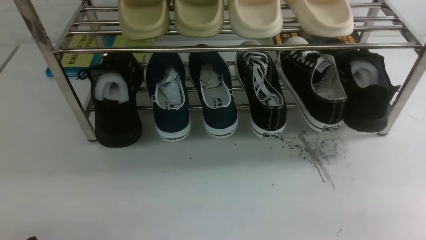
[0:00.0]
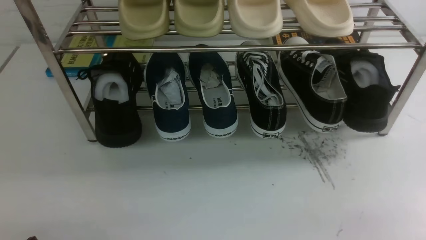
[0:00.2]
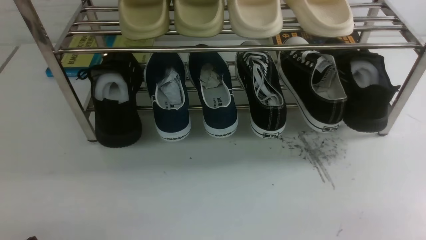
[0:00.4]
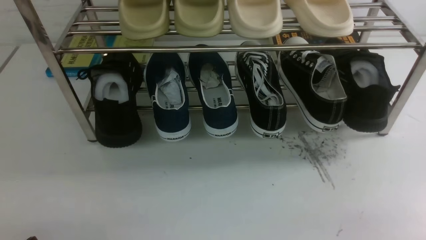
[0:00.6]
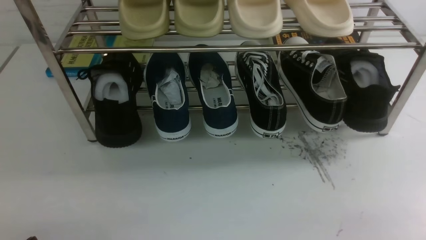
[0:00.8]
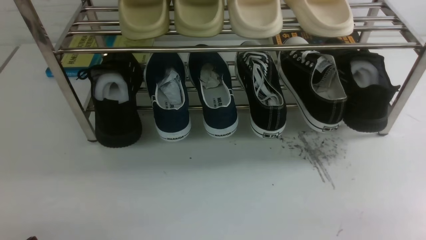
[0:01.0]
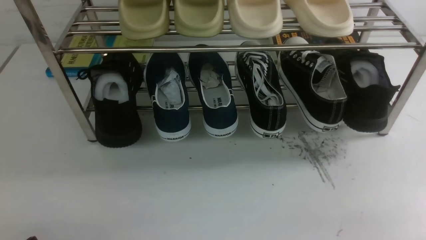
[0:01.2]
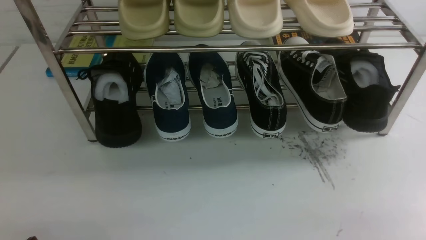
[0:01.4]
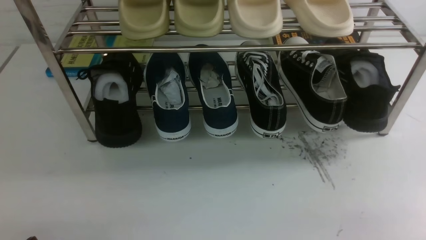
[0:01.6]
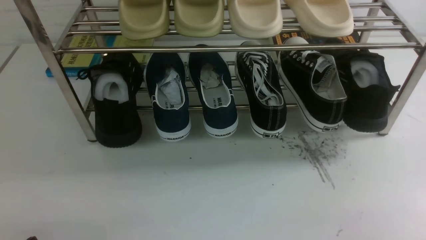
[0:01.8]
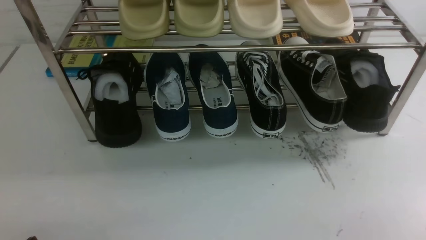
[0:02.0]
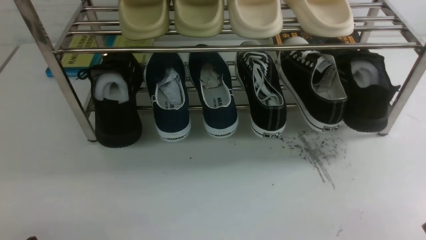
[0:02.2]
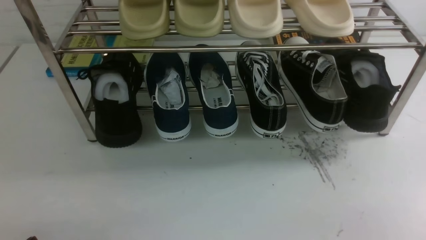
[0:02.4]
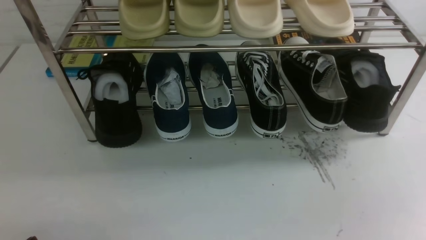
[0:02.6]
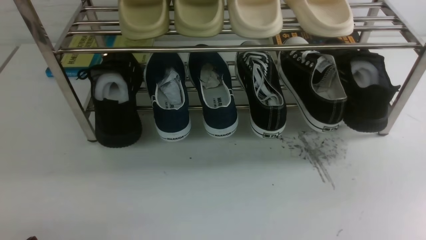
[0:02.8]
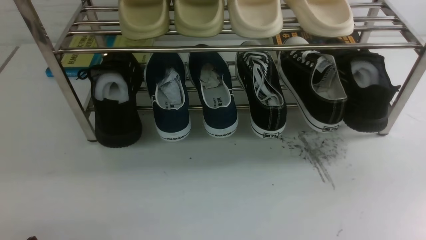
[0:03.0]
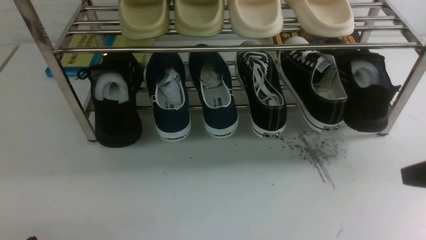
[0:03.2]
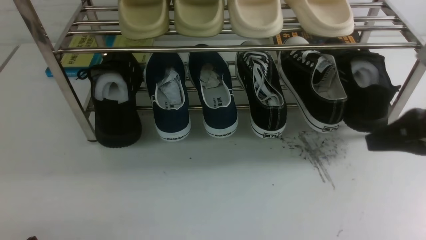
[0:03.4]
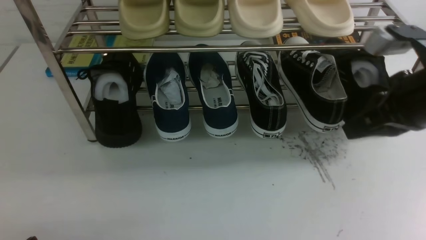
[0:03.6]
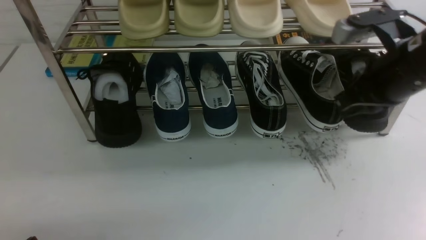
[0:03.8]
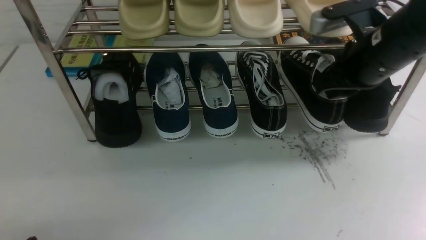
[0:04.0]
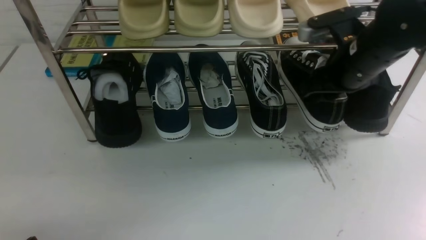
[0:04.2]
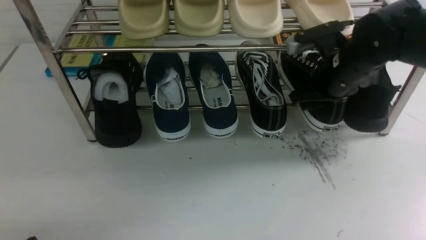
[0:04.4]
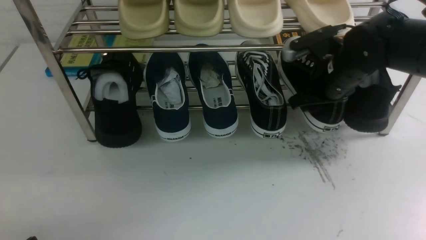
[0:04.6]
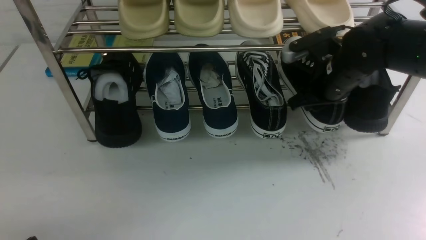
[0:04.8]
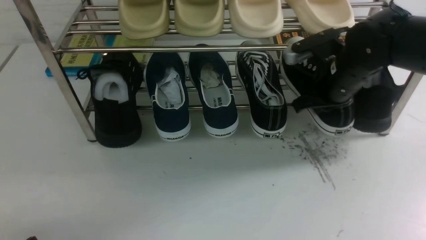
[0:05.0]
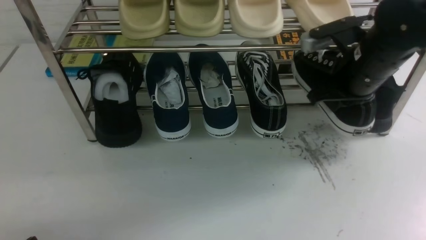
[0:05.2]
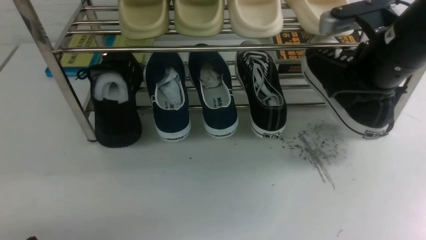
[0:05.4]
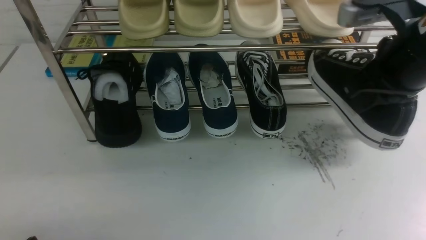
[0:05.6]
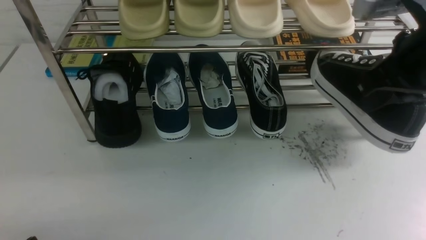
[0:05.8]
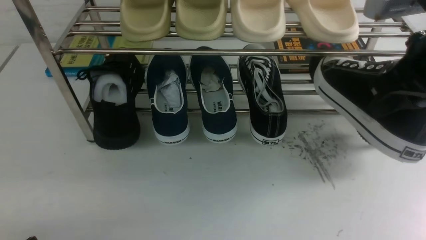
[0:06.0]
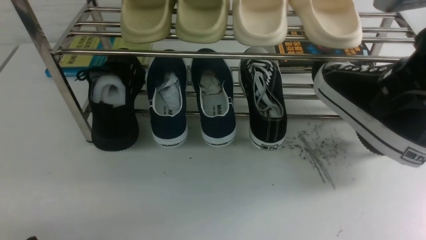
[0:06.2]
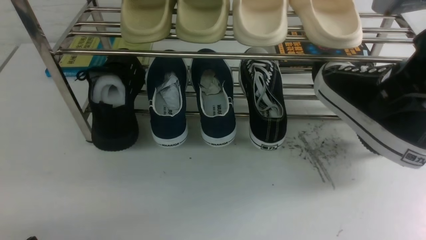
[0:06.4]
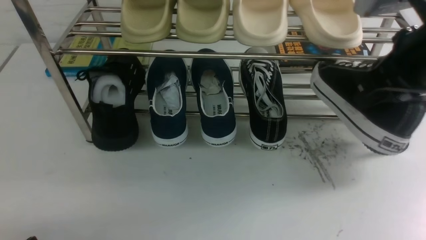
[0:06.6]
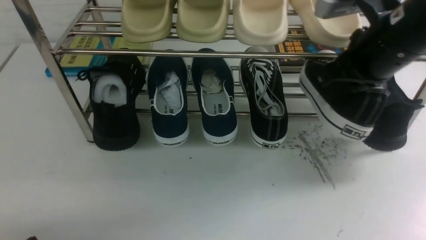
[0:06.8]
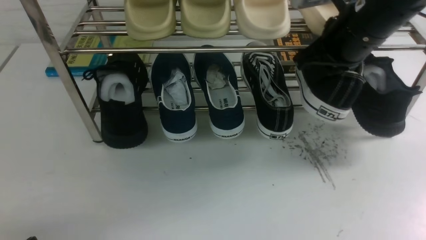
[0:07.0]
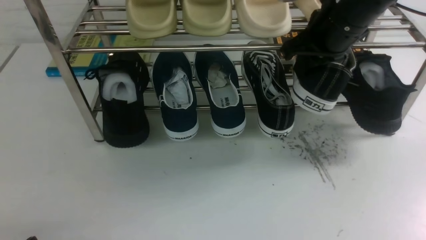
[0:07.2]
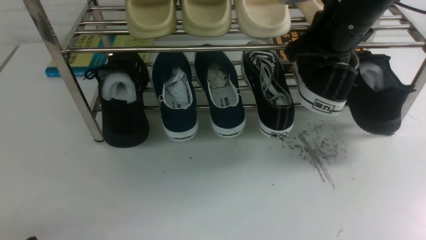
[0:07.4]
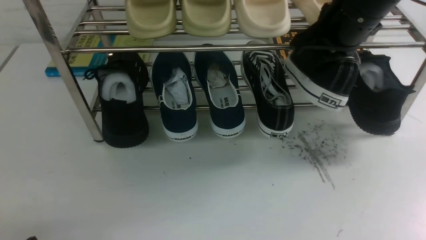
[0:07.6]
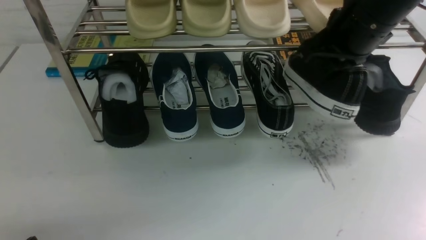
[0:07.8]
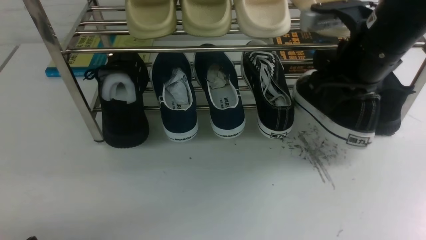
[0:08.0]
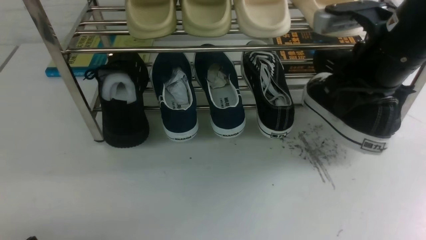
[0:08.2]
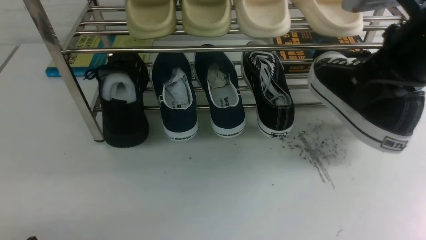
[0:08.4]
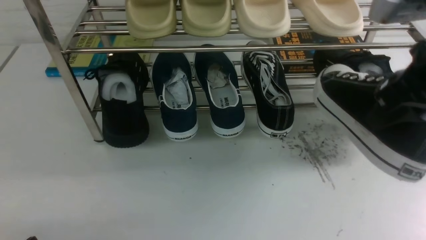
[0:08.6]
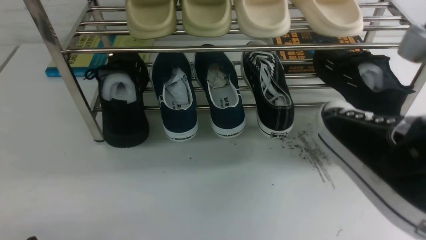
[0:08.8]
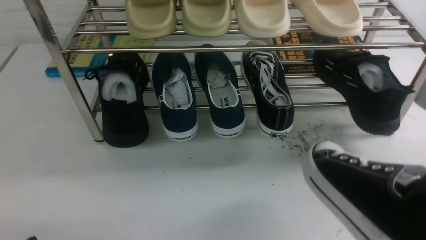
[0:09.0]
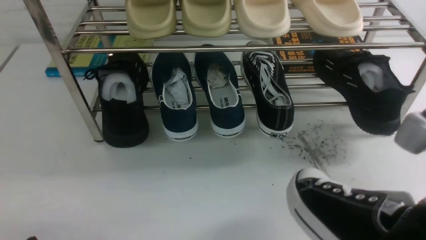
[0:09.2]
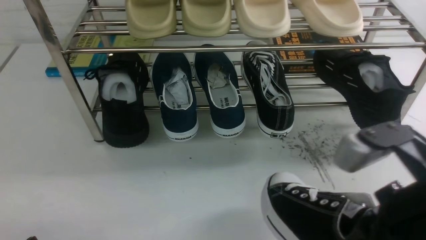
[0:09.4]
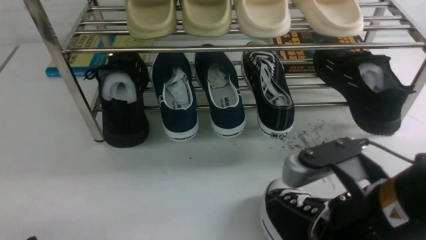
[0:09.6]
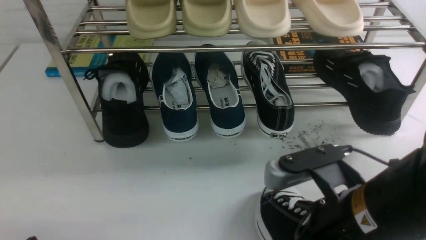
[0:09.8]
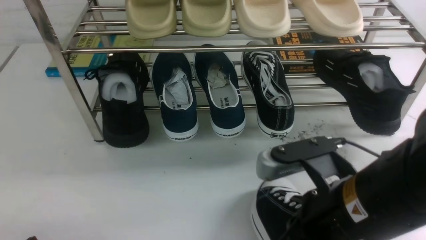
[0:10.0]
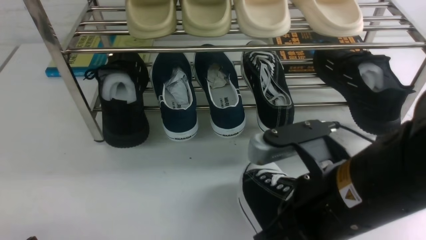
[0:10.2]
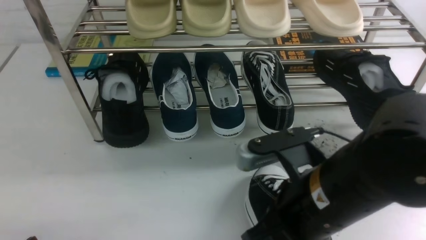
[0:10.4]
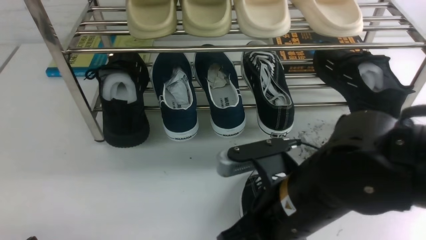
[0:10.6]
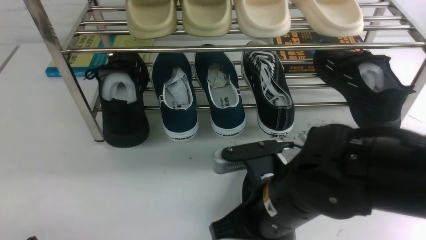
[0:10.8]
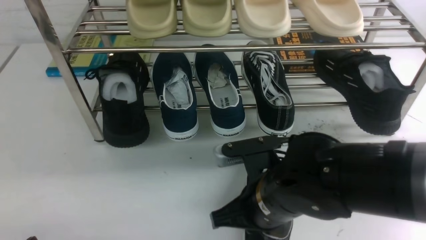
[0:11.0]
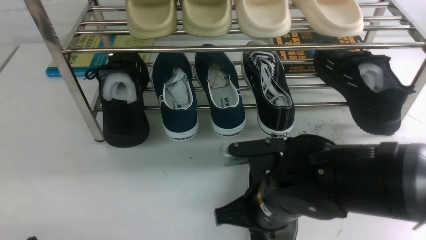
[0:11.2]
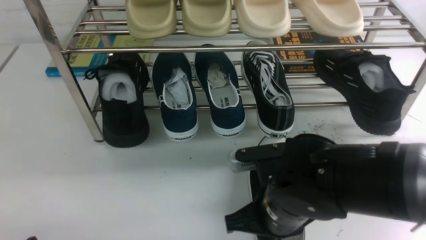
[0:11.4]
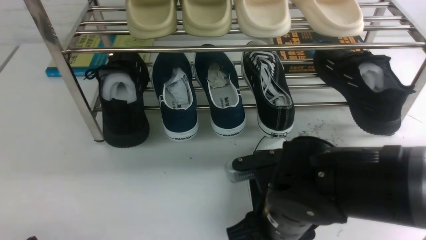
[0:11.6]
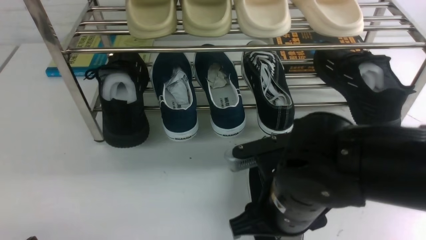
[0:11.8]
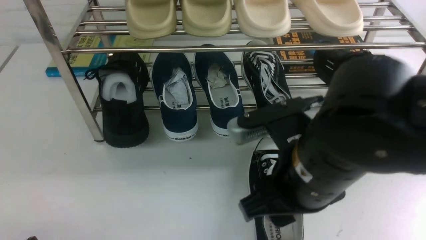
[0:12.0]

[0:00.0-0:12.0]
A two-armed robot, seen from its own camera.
Step, 0:00.0 to 0:05.2: use the right arm to clamp a shoe on the right side of the shoe rack.
Step, 0:05.4 to 0:11.8: use the right arm to take out the clamped shoe from the shoe rack and put it down.
0:03.0 to 0:04.4: The right gripper heads forward and to the left, covering approximately 25 cm, and opens.
0:04.4 to 0:06.0: The right gripper goes about 20 cm backward and upward, and closes up.
0:06.0 to 0:07.6: The right gripper moves forward, approximately 10 cm.
0:07.6 to 0:09.0: The right gripper heads backward, covering some 20 cm.
0:09.0 to 0:10.4: The right gripper heads to the left and downward, covering approximately 15 cm.
0:10.4 to 0:12.0: The right gripper moves about 5 cm downward and comes back, and opens.

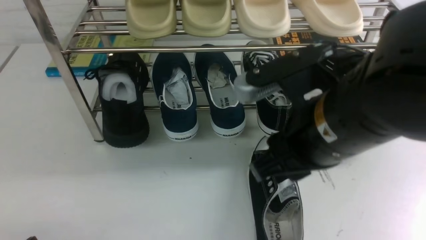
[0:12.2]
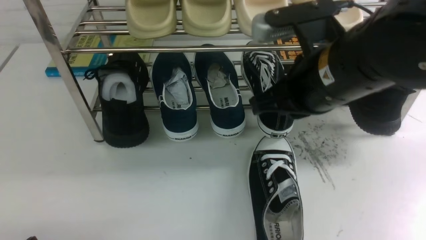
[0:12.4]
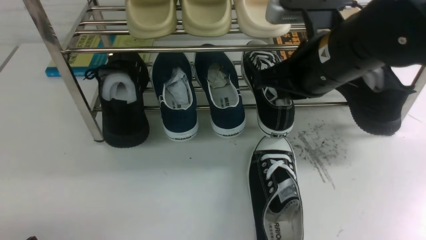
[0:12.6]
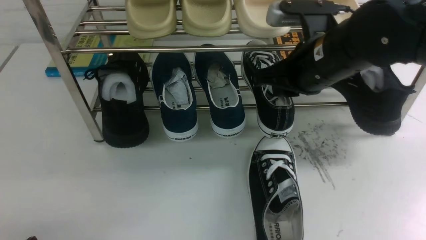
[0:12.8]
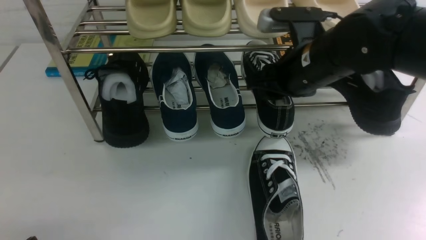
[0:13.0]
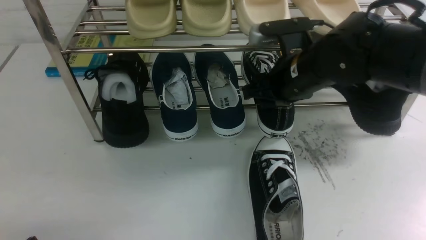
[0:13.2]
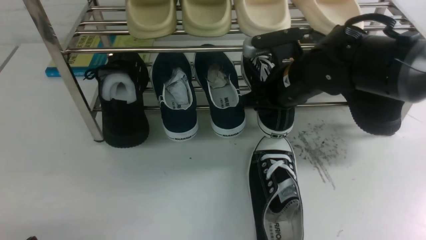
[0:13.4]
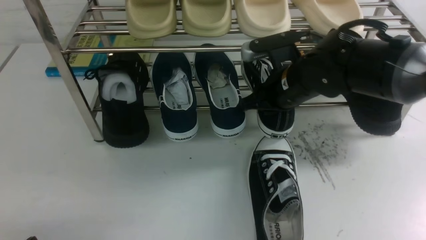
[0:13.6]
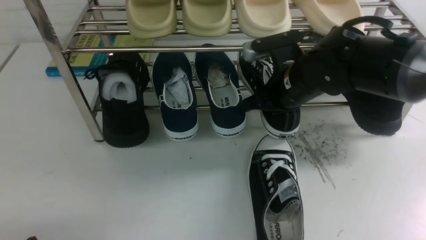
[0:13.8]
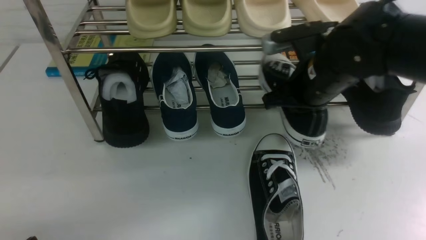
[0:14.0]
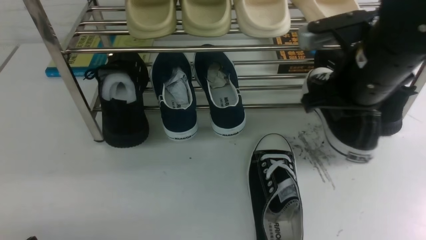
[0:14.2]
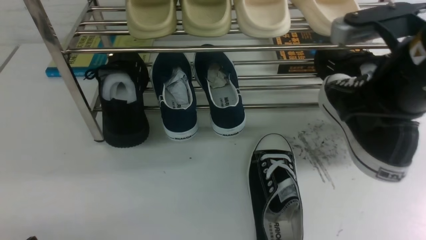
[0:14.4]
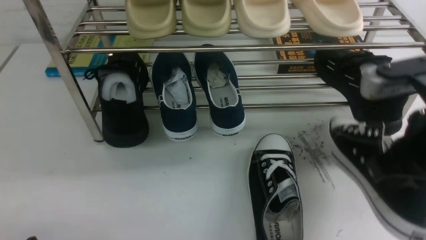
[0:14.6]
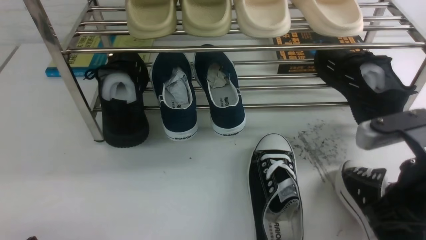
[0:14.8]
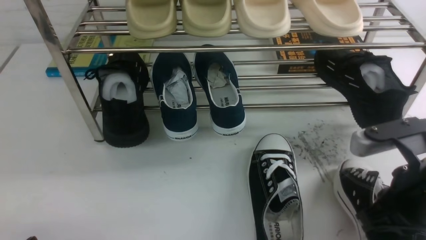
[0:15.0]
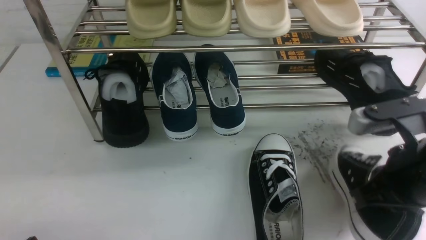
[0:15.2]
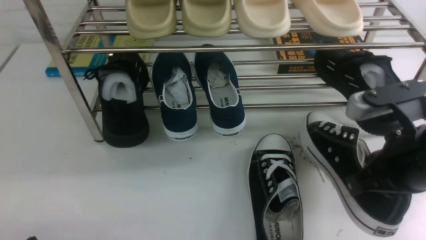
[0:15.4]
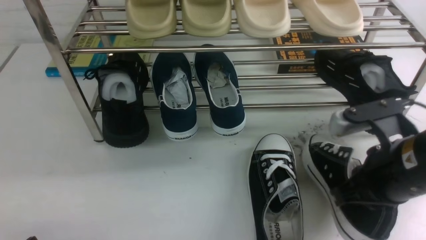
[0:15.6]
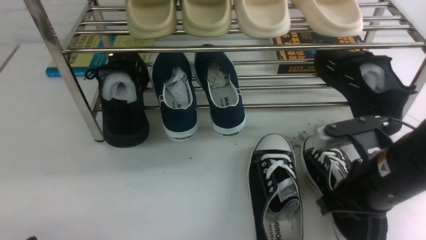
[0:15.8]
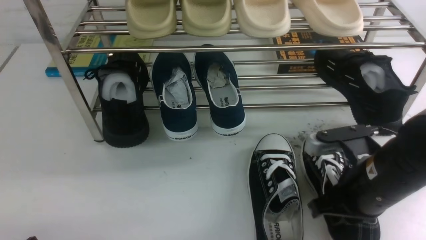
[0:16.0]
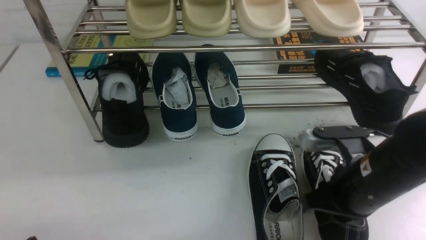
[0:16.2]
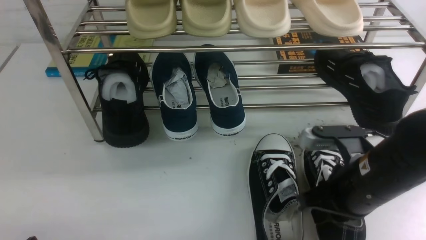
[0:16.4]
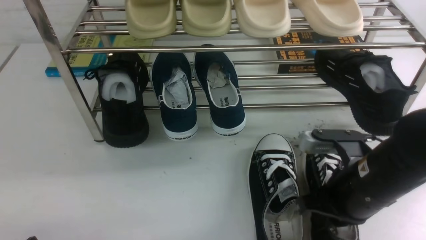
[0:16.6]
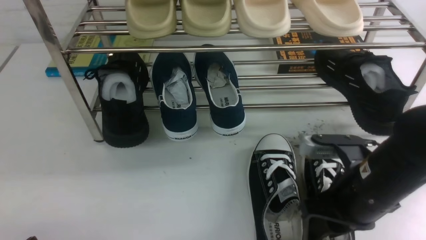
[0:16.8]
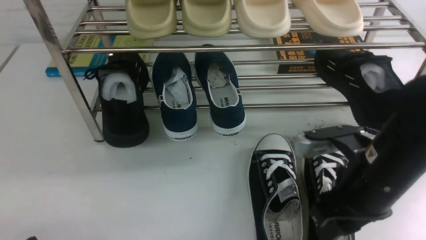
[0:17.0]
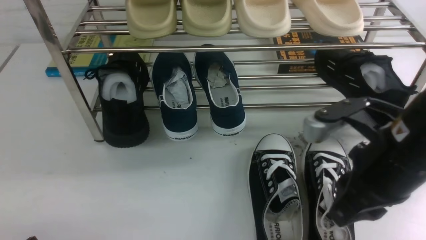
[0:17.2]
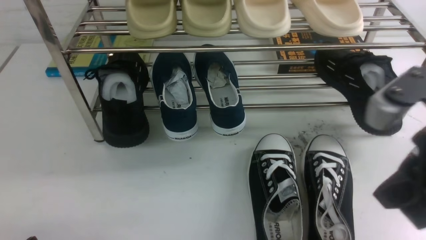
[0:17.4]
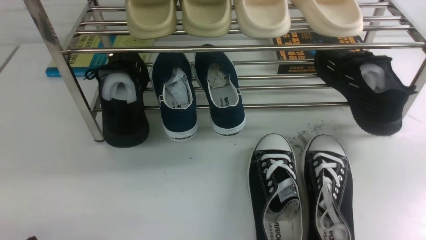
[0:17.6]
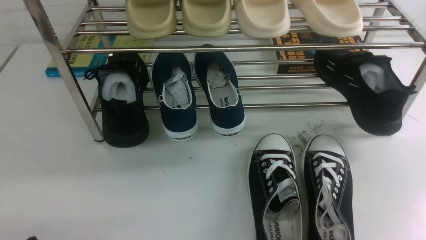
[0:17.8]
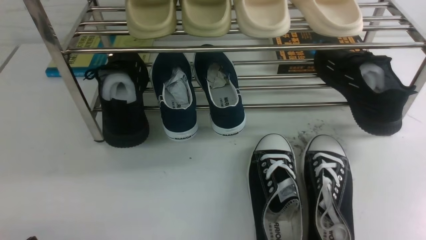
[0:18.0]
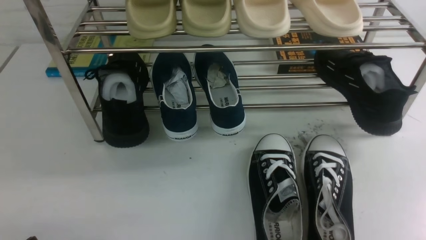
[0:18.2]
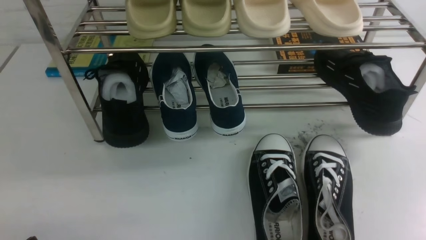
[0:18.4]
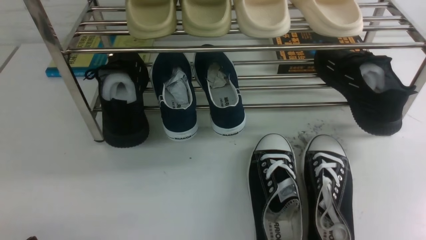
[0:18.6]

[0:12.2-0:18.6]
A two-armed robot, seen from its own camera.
Step, 0:12.2 to 0:14.0: use the right arm to clamp a shoe on the right side of the shoe rack.
Step, 0:14.4 to 0:16.8: use the right arm to take out the clamped shoe from the shoe rack and put it down.
0:12.2 to 0:13.8: The right gripper heads forward and downward, covering about 15 cm, and closes.
0:13.8 to 0:15.4: The right gripper goes roughly 20 cm backward and to the right.
0:15.4 to 0:17.0: The right gripper opens up.
0:17.0 to 0:18.6: The right gripper is displaced backward and to the right by roughly 20 cm, and closes its fingers.
